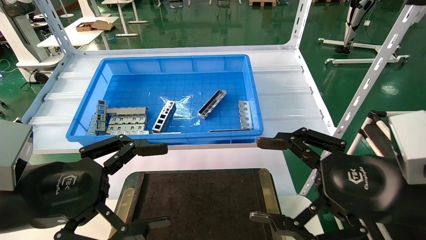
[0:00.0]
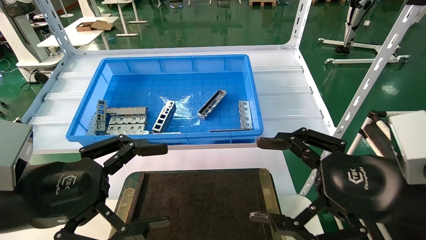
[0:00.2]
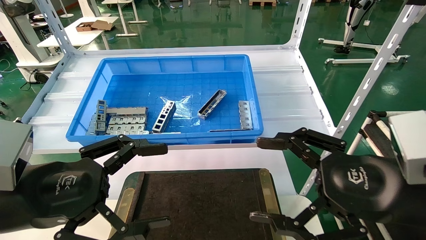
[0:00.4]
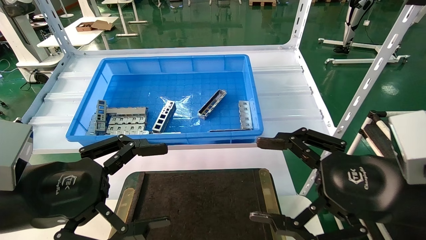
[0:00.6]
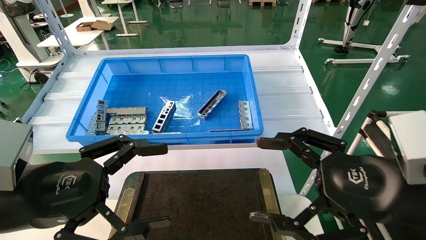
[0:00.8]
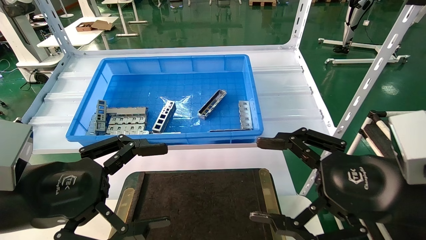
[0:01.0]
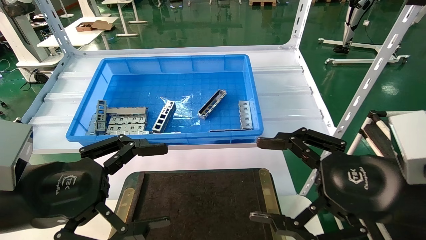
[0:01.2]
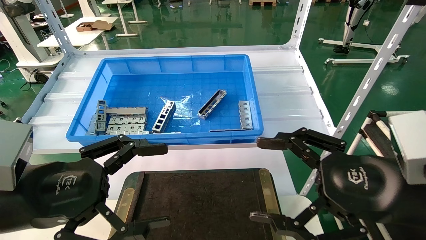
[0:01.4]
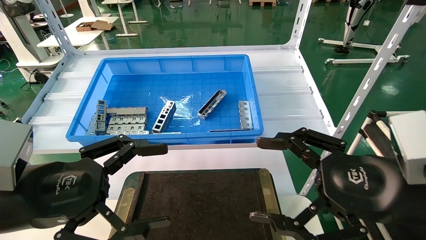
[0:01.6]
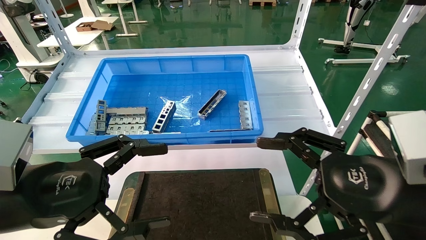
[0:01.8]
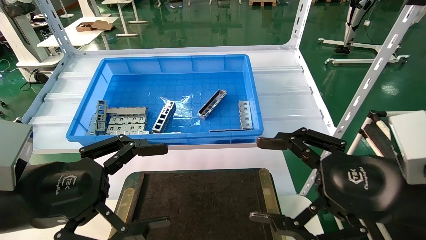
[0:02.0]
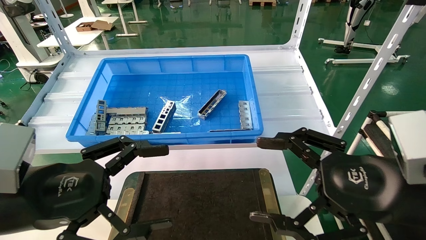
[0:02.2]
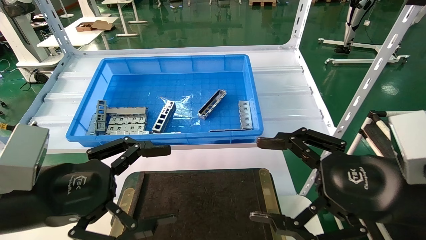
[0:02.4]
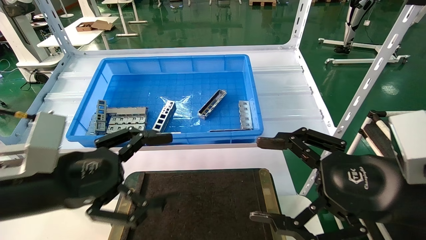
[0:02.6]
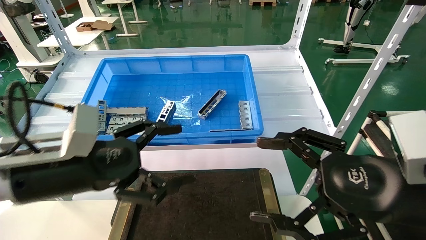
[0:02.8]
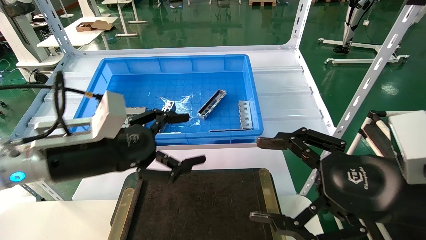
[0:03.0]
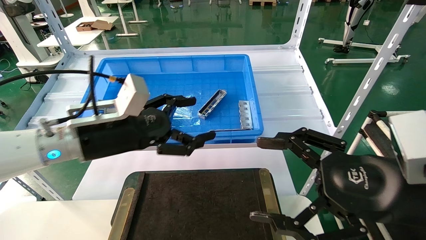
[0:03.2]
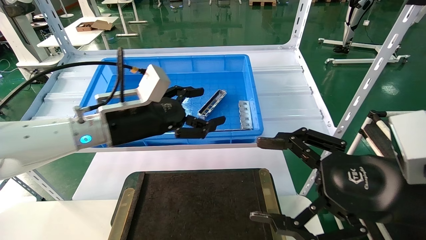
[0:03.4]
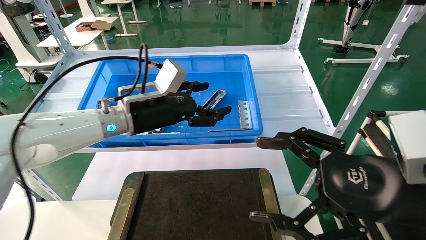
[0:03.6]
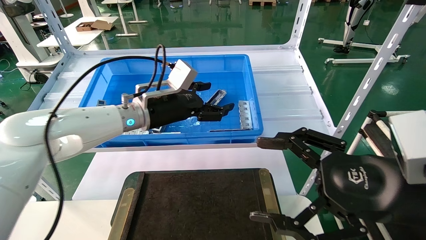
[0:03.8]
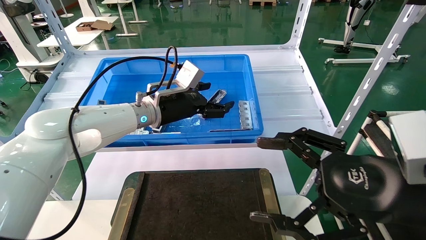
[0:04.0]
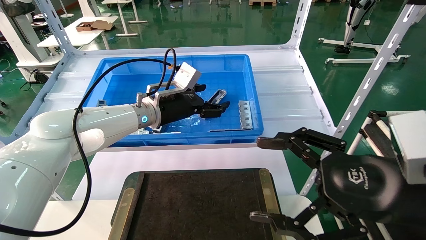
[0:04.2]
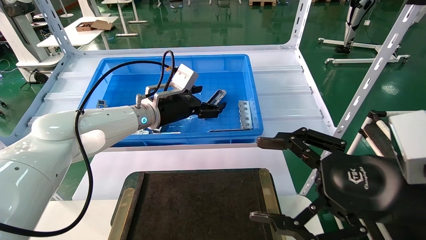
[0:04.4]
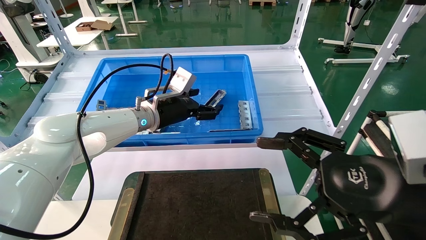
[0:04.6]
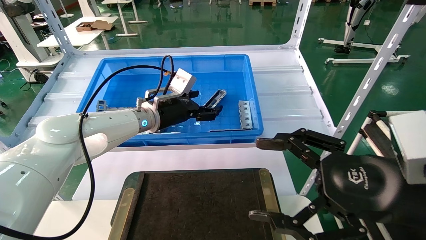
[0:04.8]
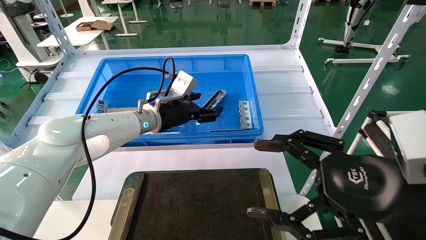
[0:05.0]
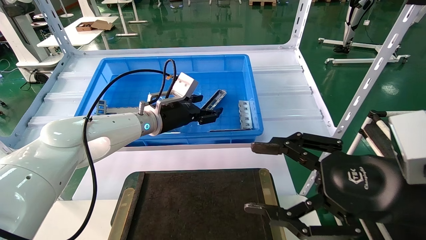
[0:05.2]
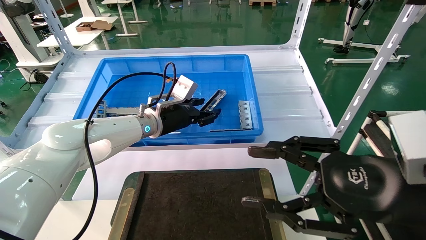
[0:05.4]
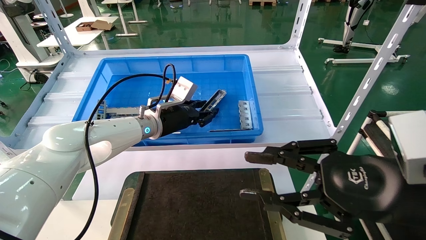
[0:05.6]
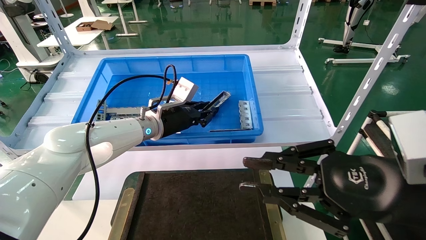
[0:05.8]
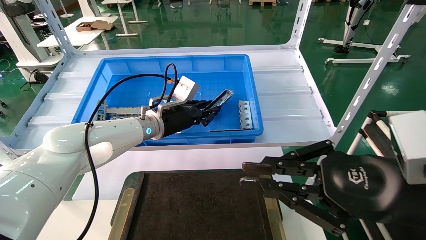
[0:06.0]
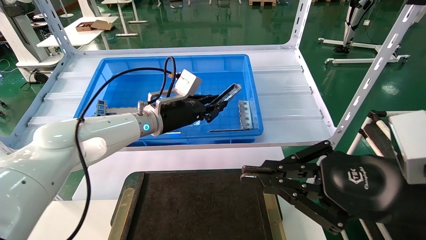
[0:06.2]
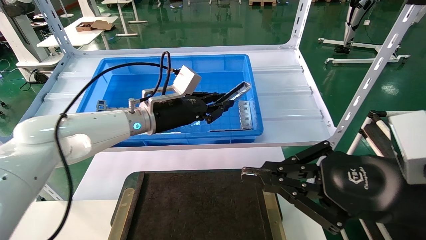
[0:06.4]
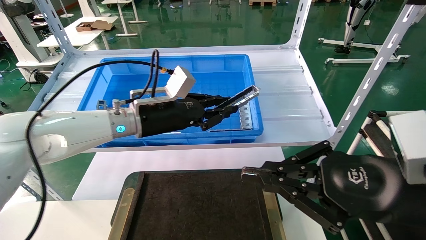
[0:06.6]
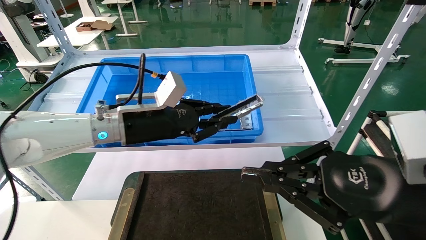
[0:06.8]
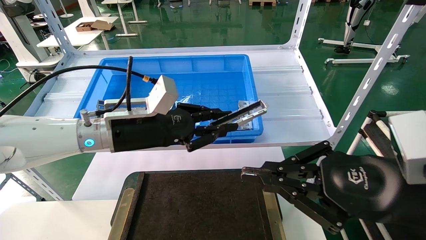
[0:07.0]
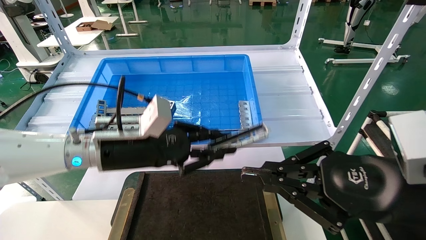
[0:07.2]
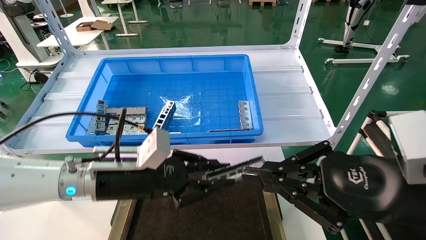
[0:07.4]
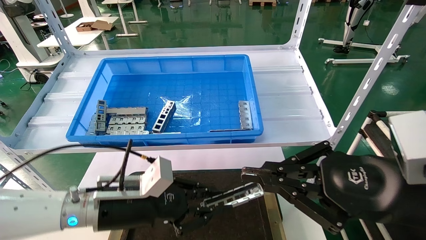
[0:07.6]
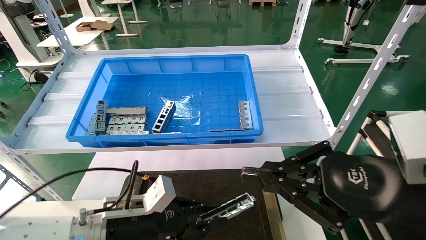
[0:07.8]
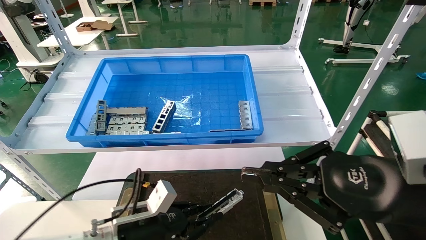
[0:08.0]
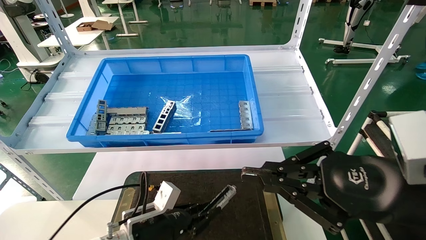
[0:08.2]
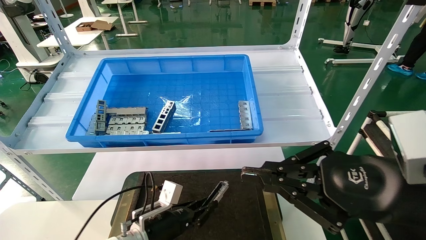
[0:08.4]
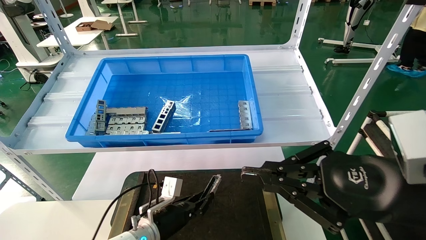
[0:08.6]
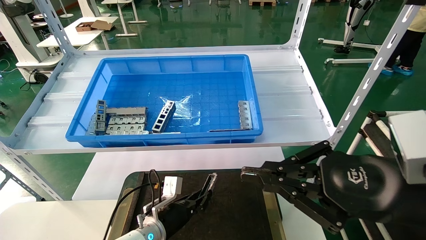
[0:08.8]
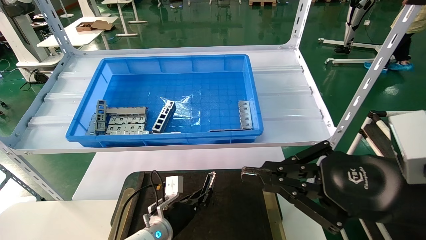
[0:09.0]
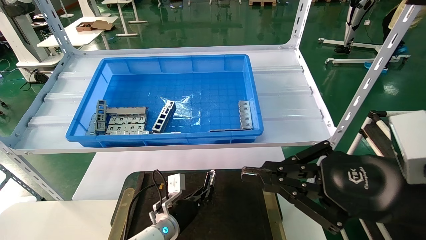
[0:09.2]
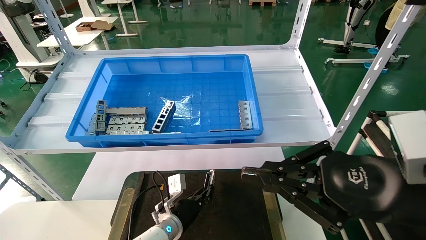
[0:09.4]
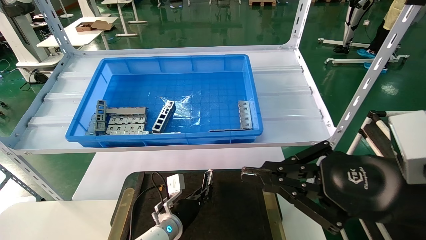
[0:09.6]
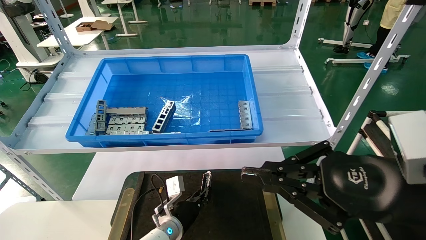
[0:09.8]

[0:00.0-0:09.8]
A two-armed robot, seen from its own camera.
Task of the whole recording: Grasp the part with one hand and place it on the black container.
Step, 0:02.2 to 0:05.8: Pick up the front USB bracket from the feeding area.
0:00.0 to 0:01.4: The two grippers keep their place.
0:01.4 to 0:02.8: The left gripper moves forward, some 5 cm.
0:02.8 to 0:04.2: The left gripper shifts some 25 cm forward and to the right.
0:04.2 to 0:05.6: The left gripper closes. Meanwhile the right gripper closes its fingers.
0:05.6 to 0:07.0: The right gripper closes up. Meanwhile the left gripper goes some 15 cm backward, and closes.
0:07.0 to 0:08.4: The left gripper is displaced downward by roughly 25 cm.
0:08.4 to 0:09.8: The left gripper goes approximately 10 cm forward and to the right.

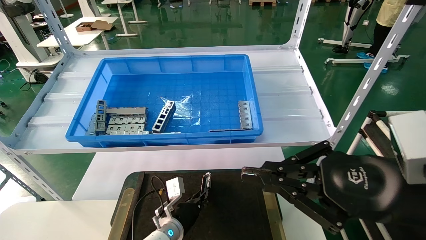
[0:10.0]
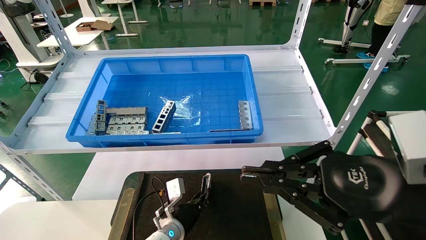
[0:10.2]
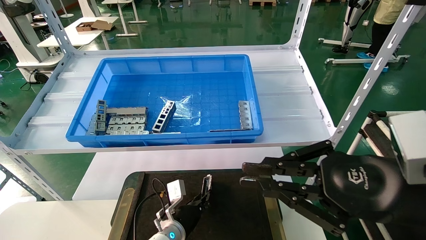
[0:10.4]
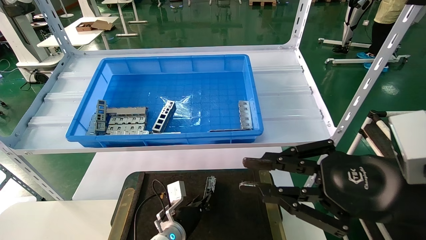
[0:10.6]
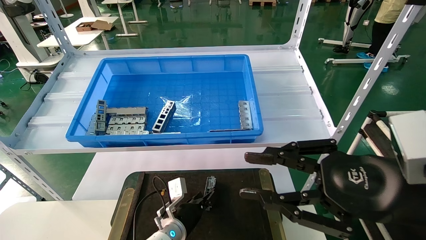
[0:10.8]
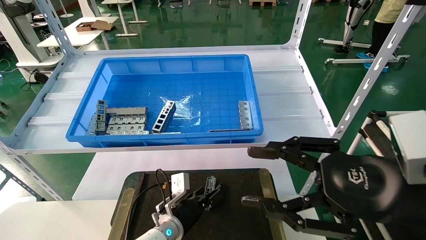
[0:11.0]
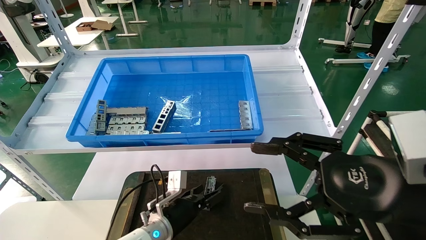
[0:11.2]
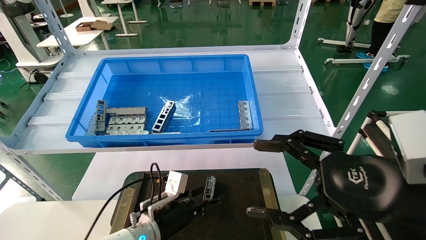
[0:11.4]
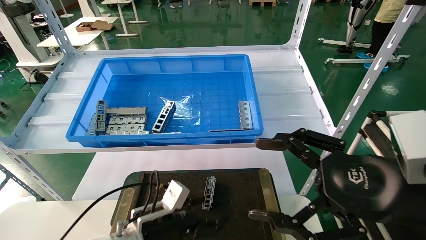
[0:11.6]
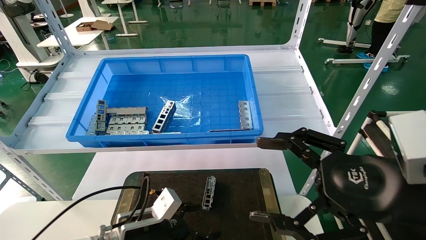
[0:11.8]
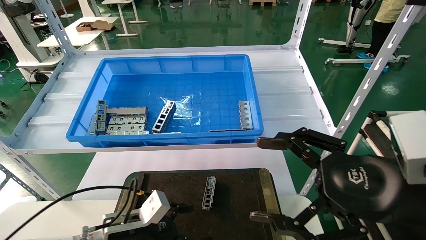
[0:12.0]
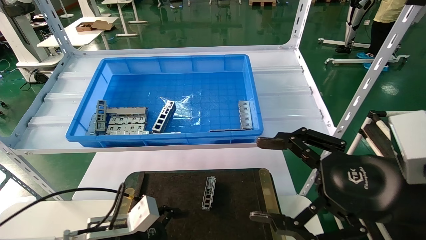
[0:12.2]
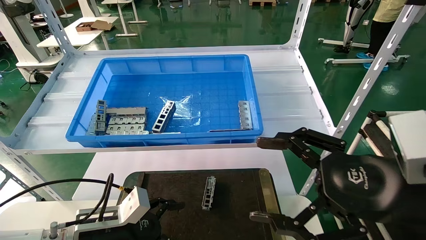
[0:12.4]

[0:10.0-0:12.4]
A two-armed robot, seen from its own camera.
Task of the whole recording: Grasp the part with one hand and place it on the black container.
0:10.0 to 0:11.2: The left gripper ends up some 5 cm from where it was, and opens its fingers. The right gripper opens its fingers.
0:11.2 to 0:12.4: The left gripper moves to the left, backward and upward, some 15 cm, and opens up; the right gripper opens up.
